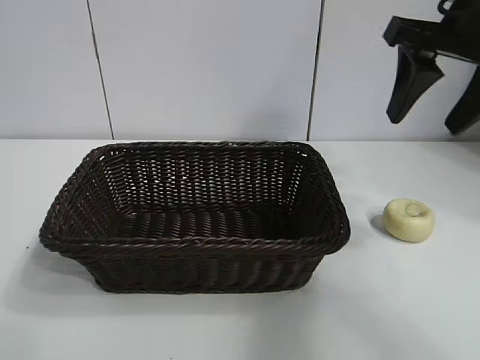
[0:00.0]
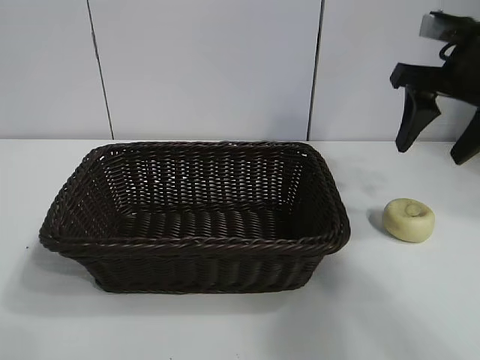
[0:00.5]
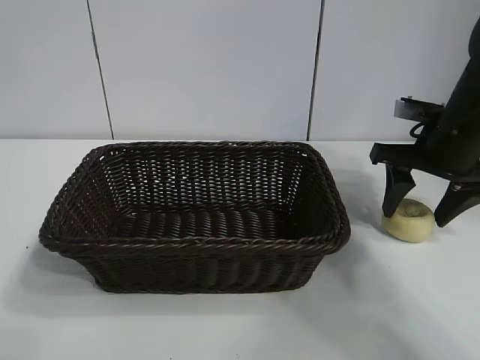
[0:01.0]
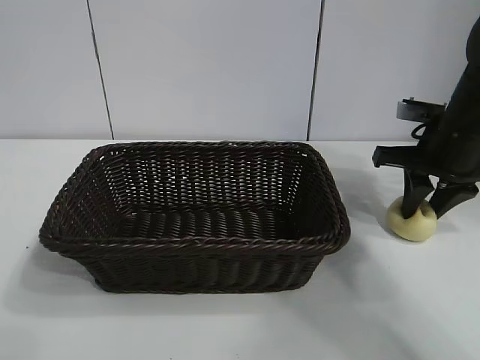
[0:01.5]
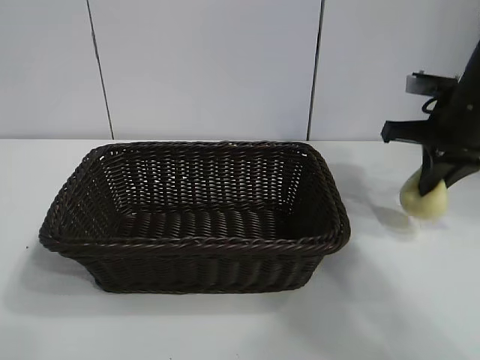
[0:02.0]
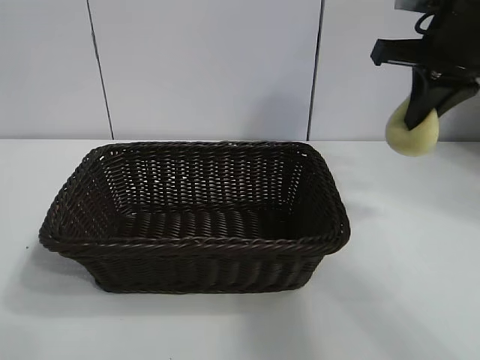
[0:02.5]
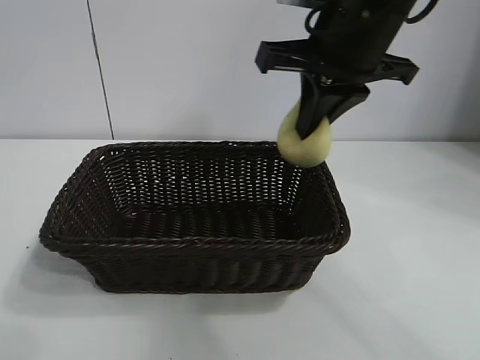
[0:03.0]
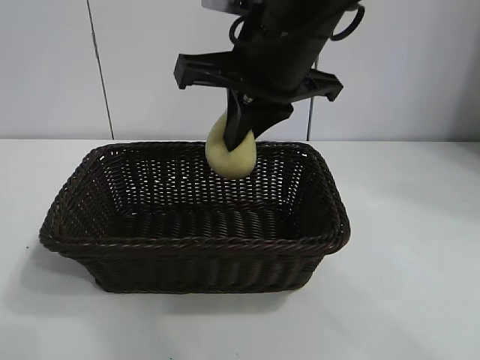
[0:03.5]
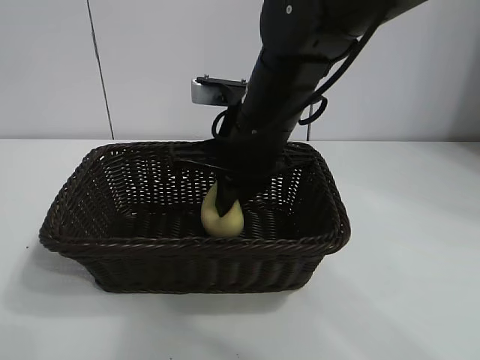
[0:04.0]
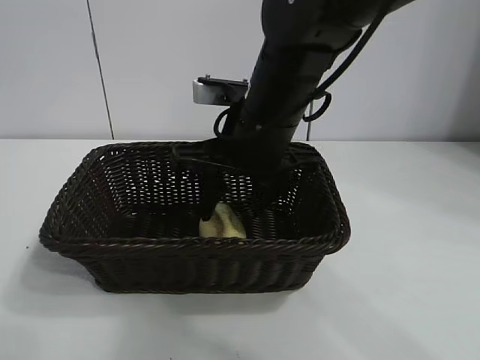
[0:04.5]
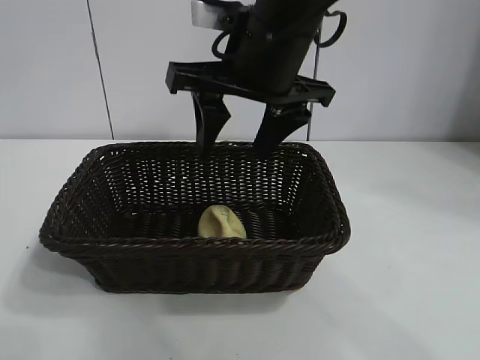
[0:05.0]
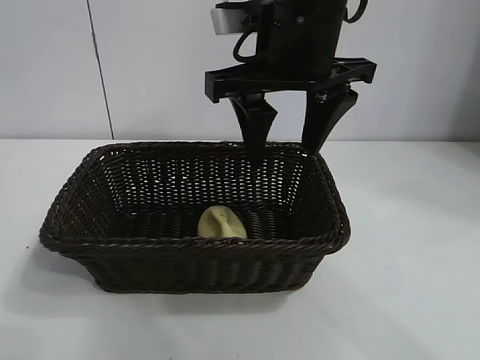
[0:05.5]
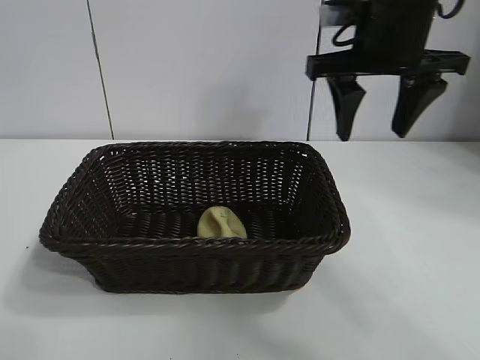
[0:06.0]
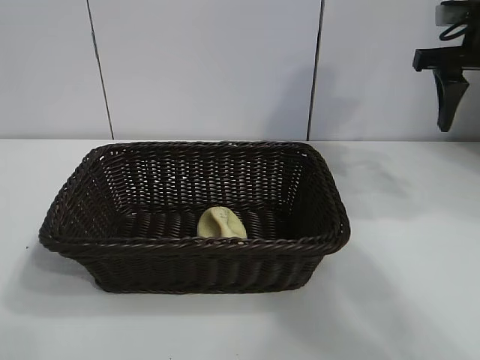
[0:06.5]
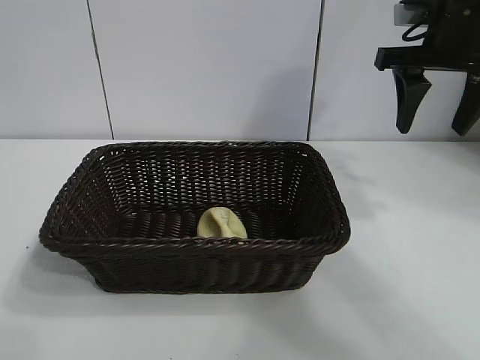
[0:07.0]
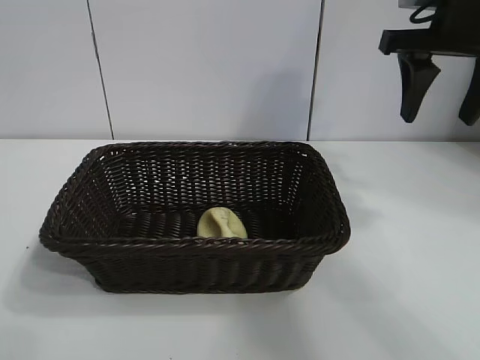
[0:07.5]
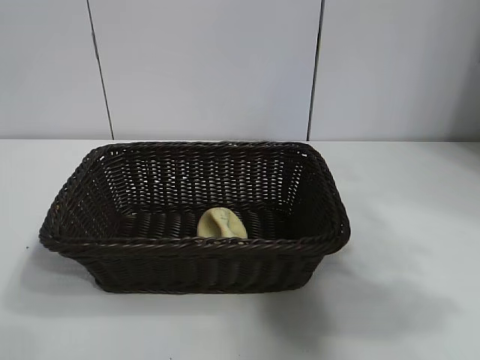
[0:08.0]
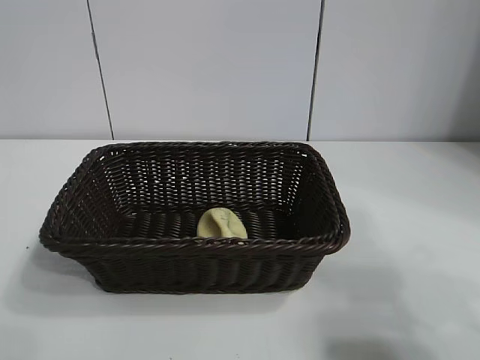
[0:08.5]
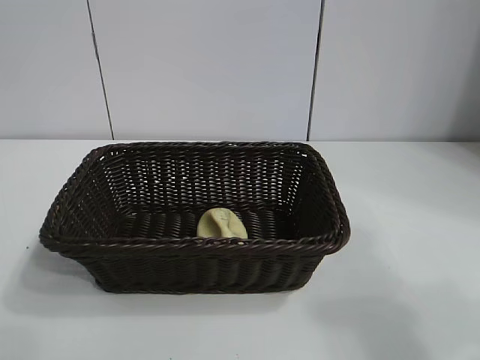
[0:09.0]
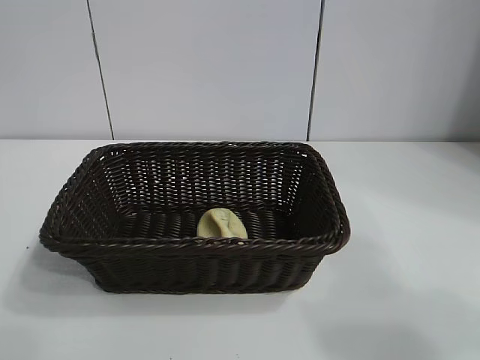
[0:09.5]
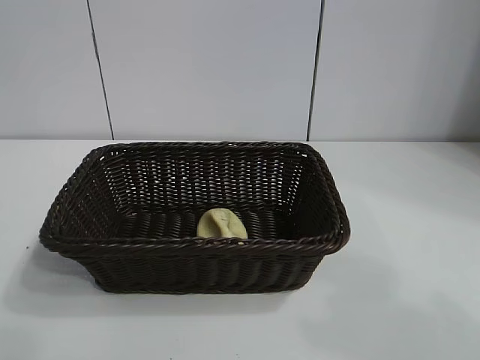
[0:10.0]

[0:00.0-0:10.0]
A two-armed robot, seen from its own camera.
Task of the whole recording: pick up the egg yolk pastry and put it into the basket.
Step, 0:02.0 to 0:04.5: Place the egg yolk pastry in the basket with right gripper.
